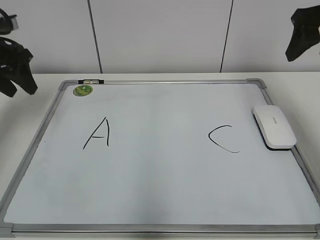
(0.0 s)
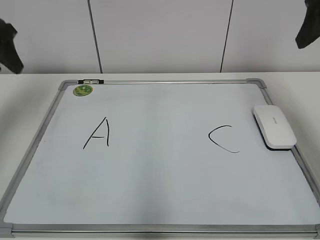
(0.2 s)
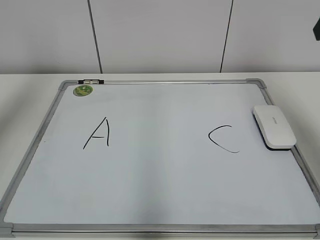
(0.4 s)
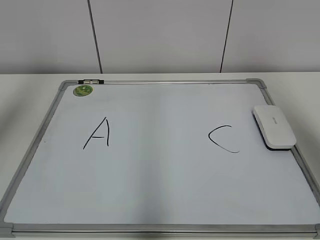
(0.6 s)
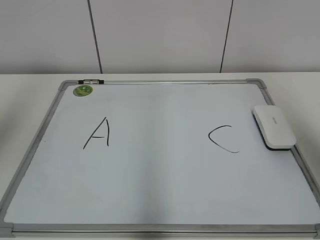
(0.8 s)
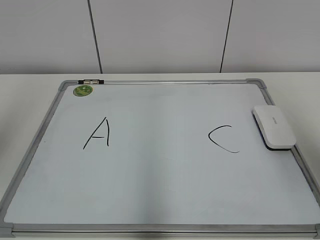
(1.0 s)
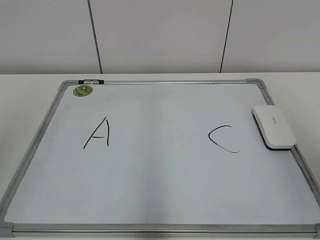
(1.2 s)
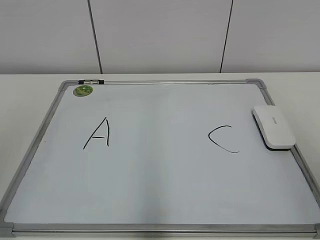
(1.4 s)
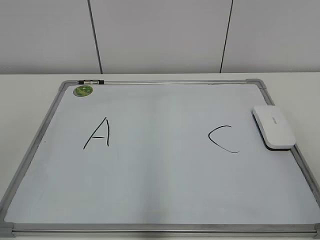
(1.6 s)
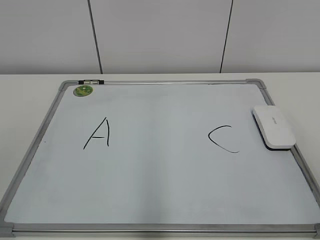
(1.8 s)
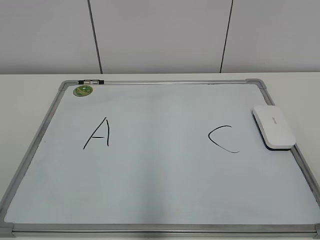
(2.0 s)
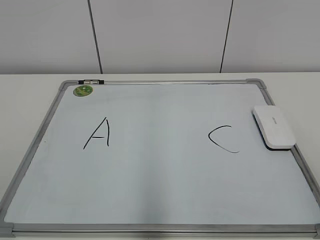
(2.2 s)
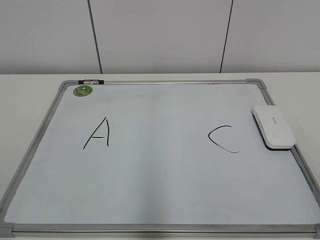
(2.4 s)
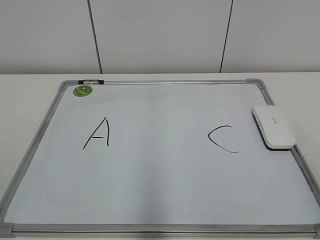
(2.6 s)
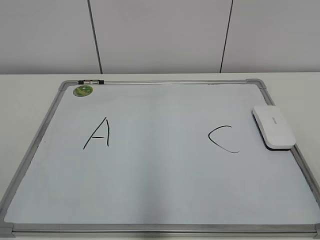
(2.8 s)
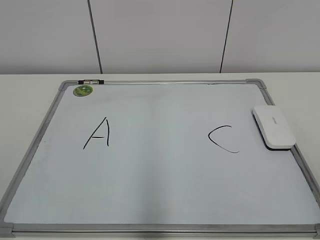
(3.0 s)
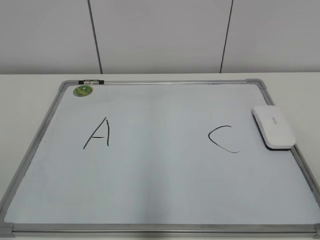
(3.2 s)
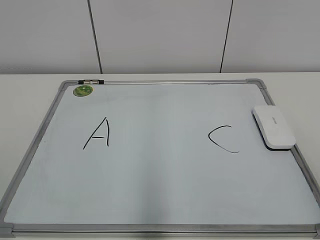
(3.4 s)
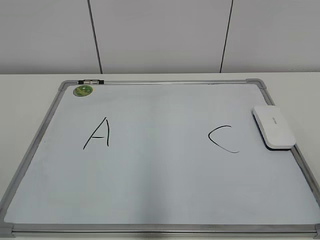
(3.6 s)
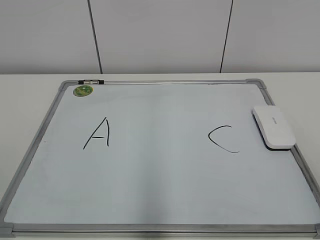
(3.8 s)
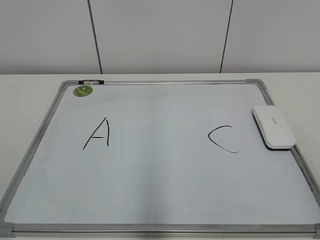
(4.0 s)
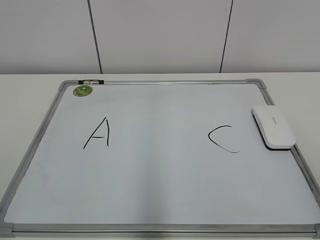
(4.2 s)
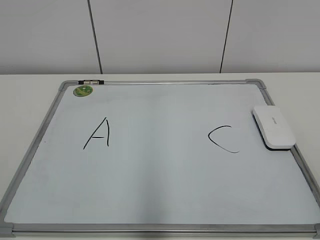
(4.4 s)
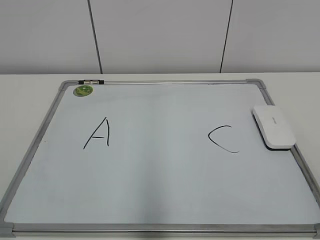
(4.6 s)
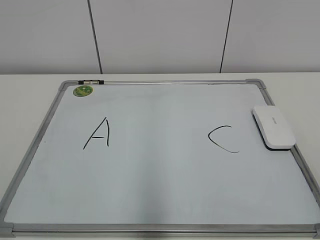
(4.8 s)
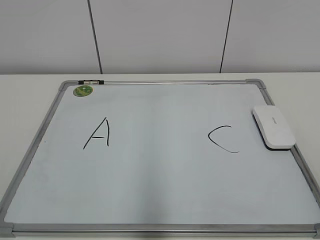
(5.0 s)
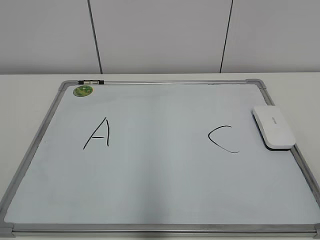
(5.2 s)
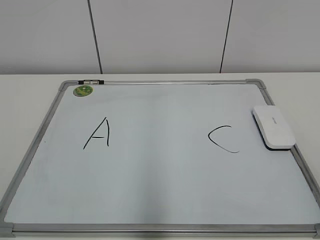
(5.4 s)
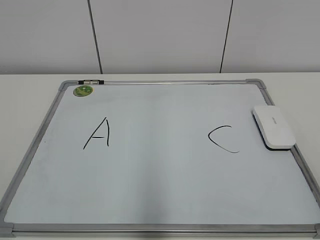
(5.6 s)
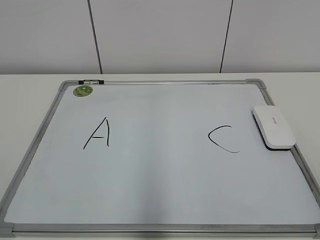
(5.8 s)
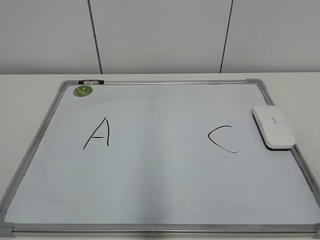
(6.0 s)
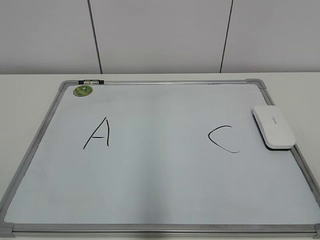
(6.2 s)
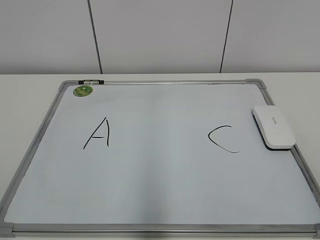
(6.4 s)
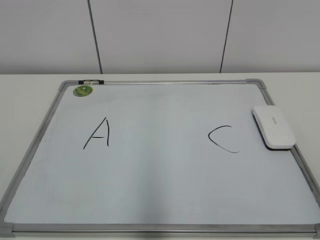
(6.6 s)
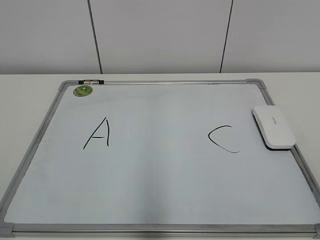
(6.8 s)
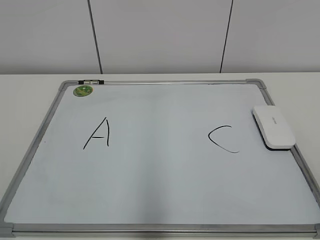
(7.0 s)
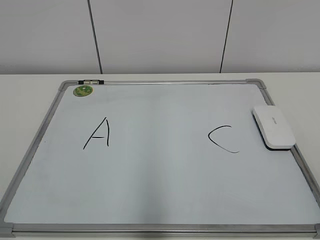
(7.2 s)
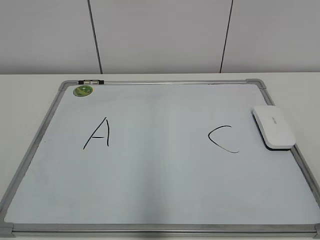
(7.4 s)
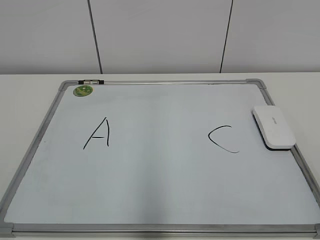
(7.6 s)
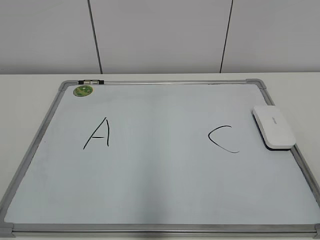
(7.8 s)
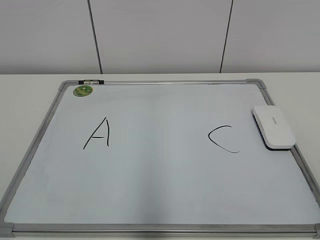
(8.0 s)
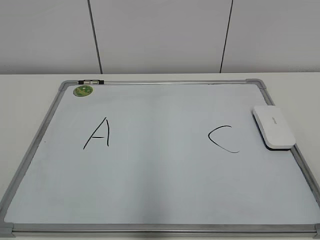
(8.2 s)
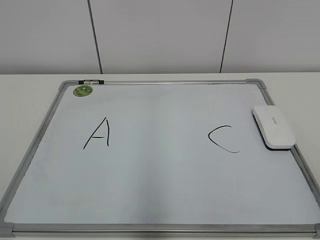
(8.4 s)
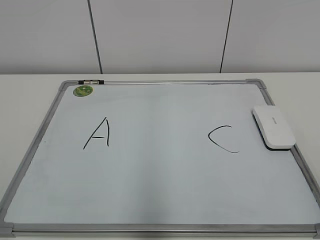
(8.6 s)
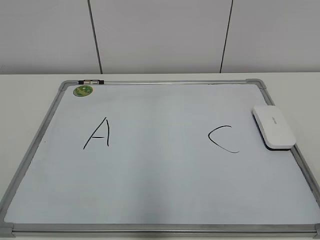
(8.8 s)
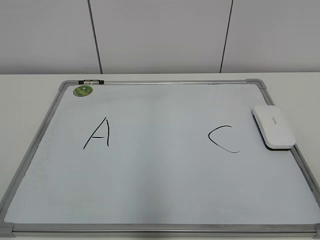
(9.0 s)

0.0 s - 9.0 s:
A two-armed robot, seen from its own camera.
Task of the whole recording: pick up the eraser on the blackboard and erase the letter "B".
0.0 s - 1.6 s: Both grippers move backward, approximately 30 cm.
6.0 s - 9.0 s: Both grippers stay about where they are.

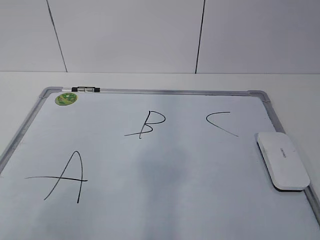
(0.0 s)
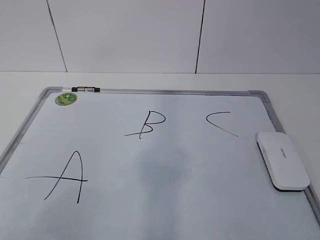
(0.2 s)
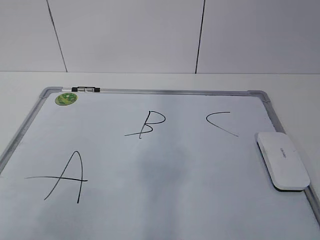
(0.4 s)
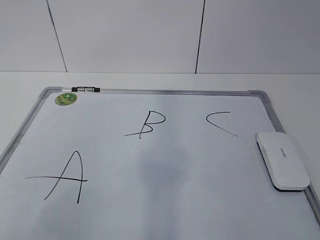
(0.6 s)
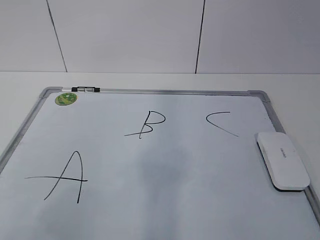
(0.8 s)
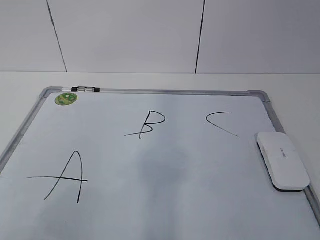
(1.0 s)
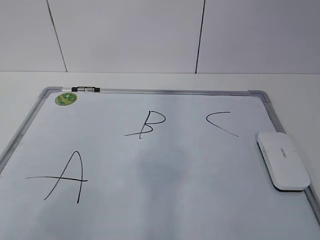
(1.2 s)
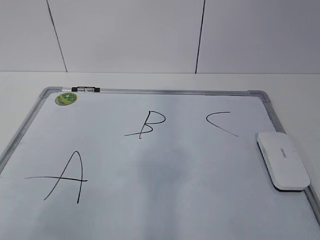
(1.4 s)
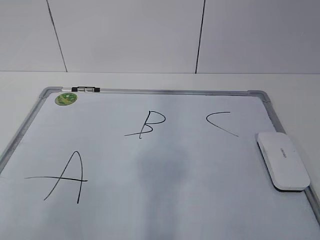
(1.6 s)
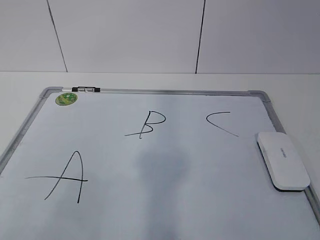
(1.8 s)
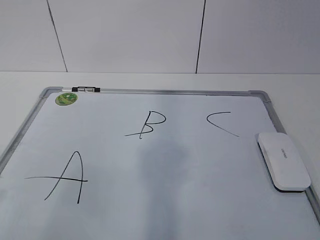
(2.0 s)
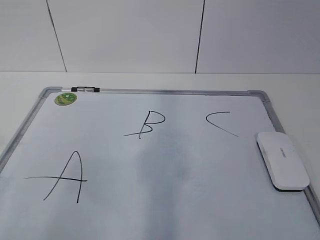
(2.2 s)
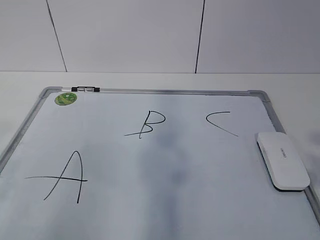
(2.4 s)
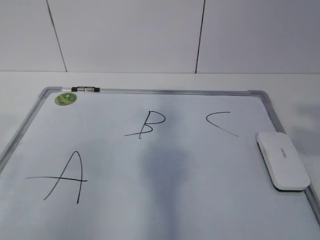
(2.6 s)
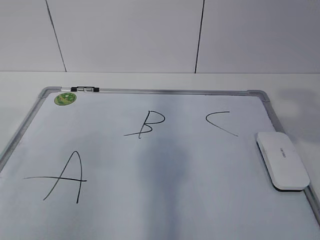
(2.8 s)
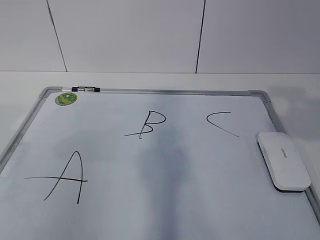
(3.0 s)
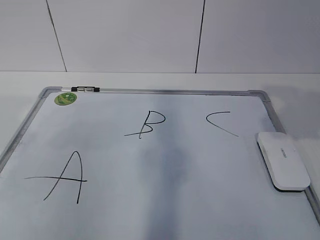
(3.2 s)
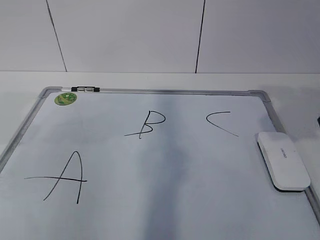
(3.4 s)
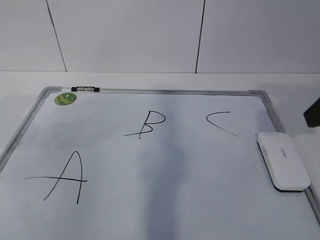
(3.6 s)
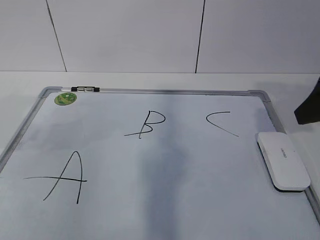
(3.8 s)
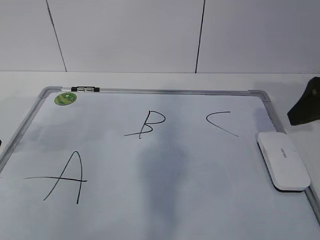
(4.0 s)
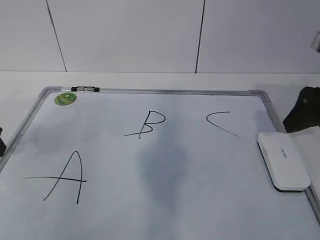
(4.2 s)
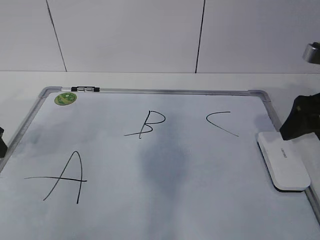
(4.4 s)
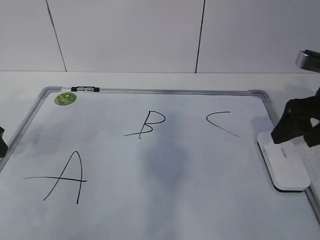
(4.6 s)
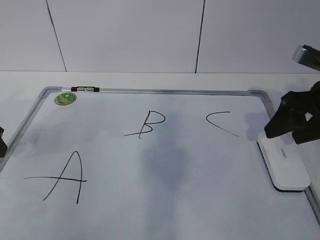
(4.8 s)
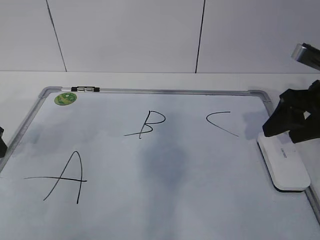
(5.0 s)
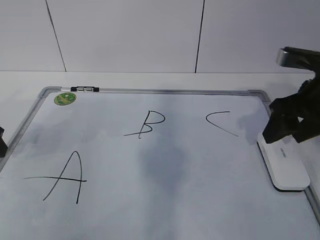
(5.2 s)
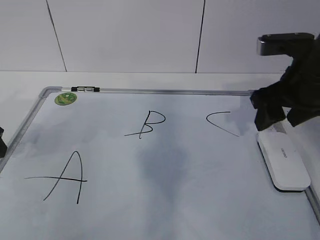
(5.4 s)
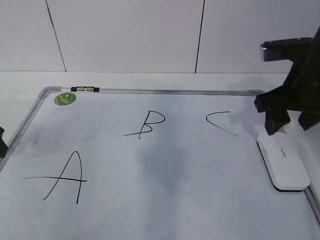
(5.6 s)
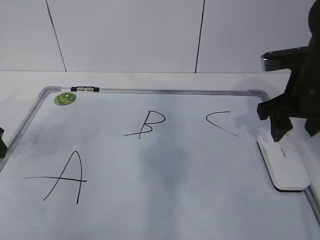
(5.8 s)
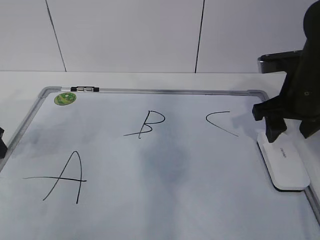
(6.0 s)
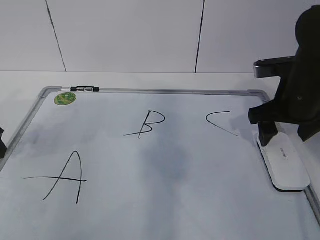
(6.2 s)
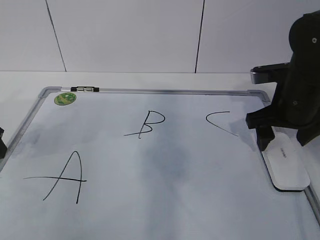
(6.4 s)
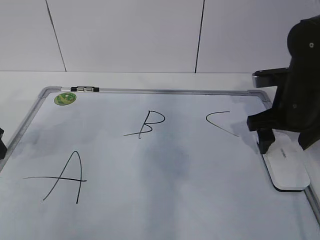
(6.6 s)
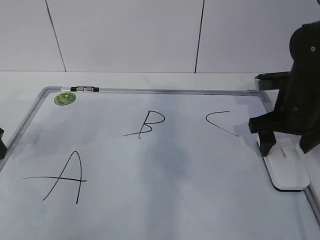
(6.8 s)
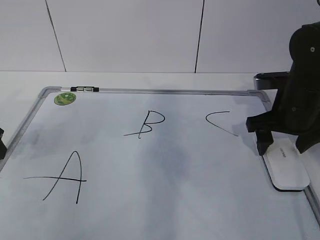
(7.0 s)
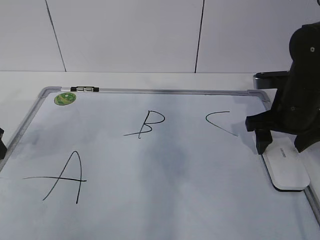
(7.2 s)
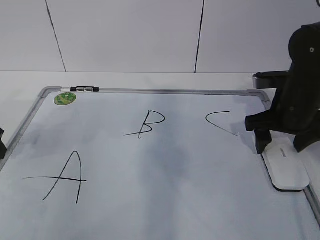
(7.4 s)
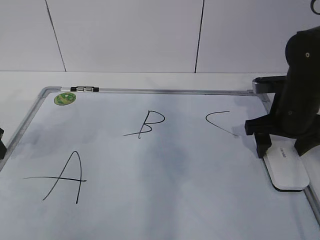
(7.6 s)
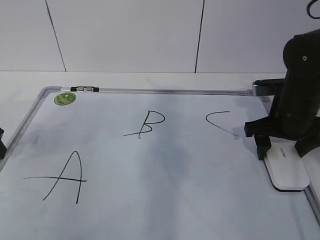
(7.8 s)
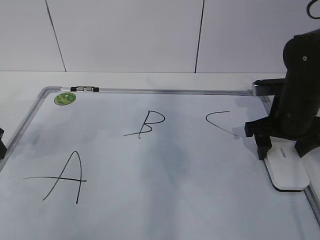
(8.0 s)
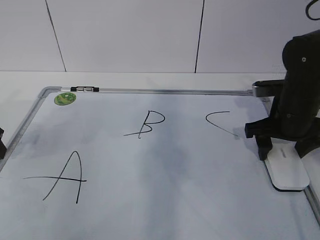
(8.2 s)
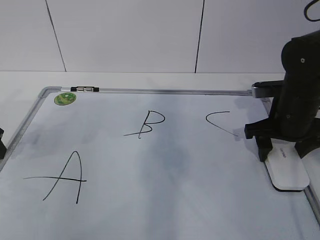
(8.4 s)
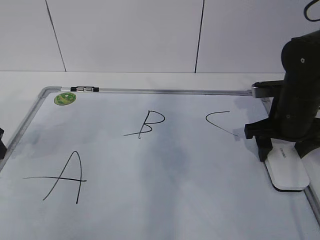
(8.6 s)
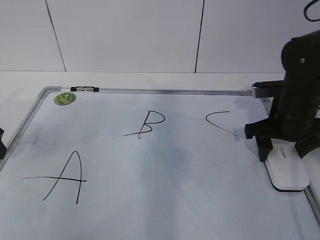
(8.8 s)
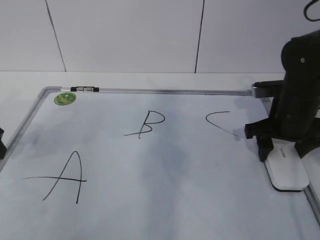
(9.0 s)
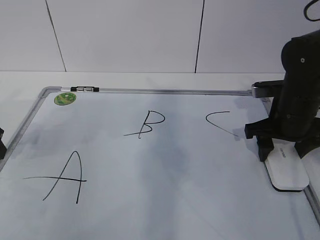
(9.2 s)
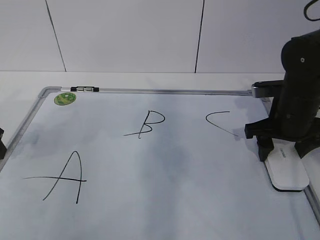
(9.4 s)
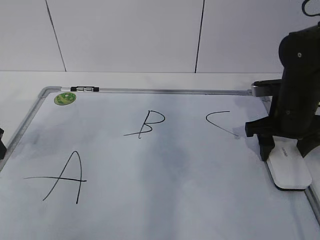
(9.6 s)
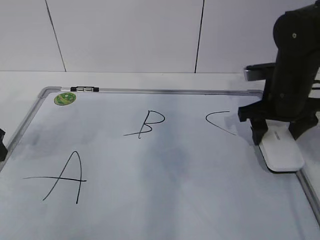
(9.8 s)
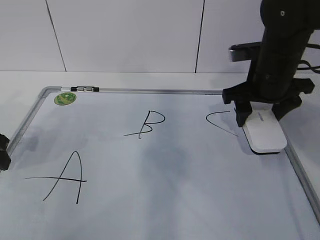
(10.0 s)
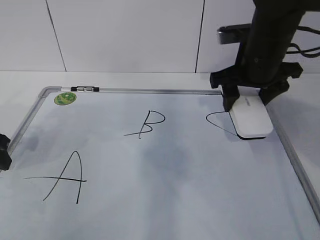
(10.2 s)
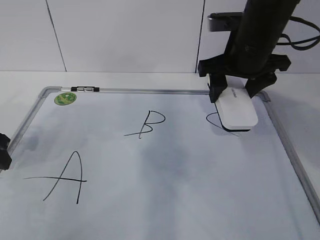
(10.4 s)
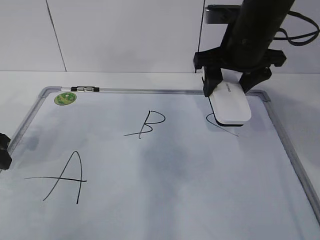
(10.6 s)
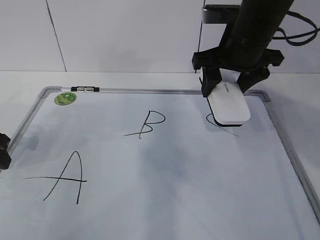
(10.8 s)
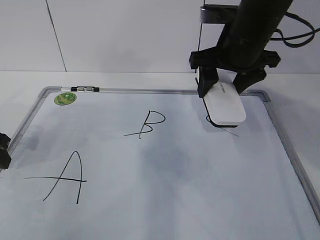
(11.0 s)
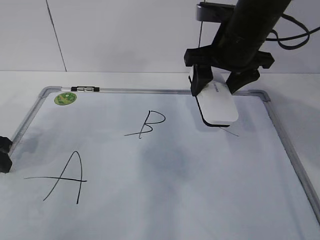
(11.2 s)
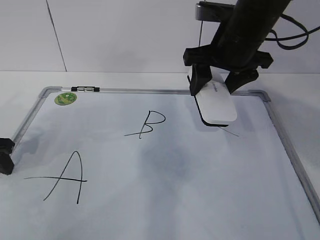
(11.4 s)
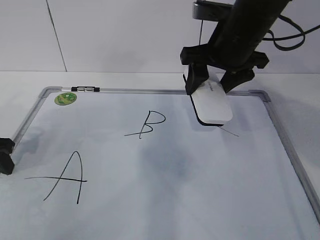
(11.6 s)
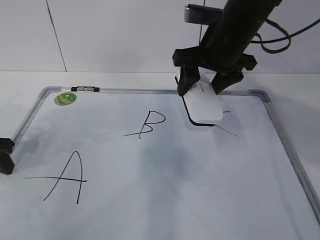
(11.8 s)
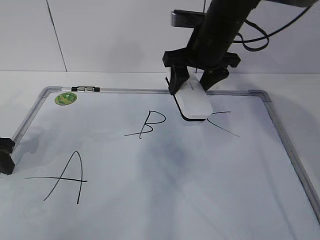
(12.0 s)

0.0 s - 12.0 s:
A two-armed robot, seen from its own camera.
Task of the whole recording: pick up the eraser on the blackboard and erase the letter "B".
Step, 3.6 s - 7.8 s: Grab the eraser with your right hand.
1.6 s - 3.0 s: The left gripper heads forward, covering some 15 cm. Meanwhile the right gripper travels forward and upward by some 20 cm.
3.0 s - 4.4 s: The grippers both shift forward and downward by roughly 15 cm. The right gripper opens its fingers.
4.4 s - 6.0 s: The right gripper moves to the left, some 5 cm, and closes.
6.0 s - 7.6 s: The right gripper moves roughly 5 cm, and opens.
7.6 s - 9.0 s: The right gripper closes.
9.0 s - 10.4 s: The right gripper heads upward and to the left, covering some 15 cm.
10.4 s - 12.0 s: The right gripper changes place by roughly 5 cm.

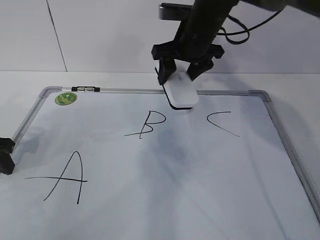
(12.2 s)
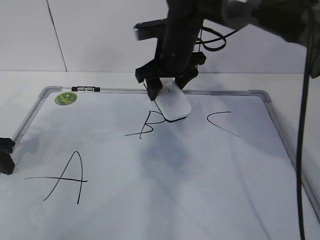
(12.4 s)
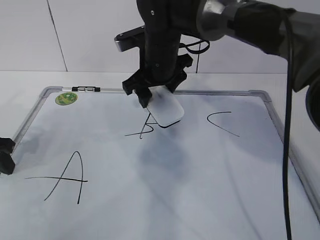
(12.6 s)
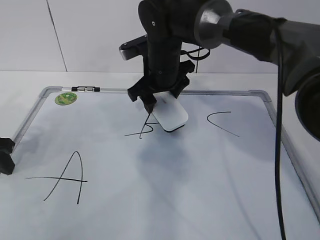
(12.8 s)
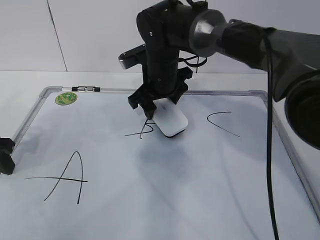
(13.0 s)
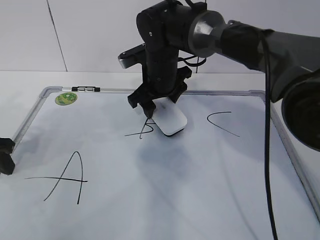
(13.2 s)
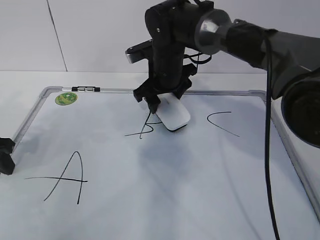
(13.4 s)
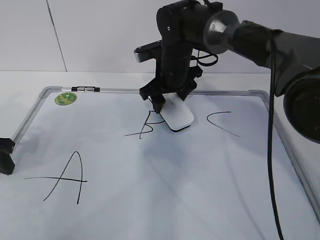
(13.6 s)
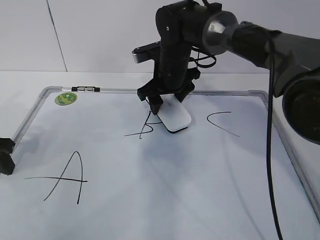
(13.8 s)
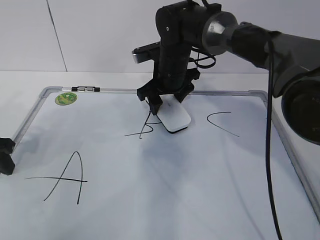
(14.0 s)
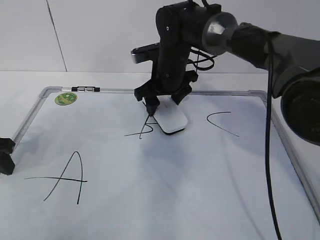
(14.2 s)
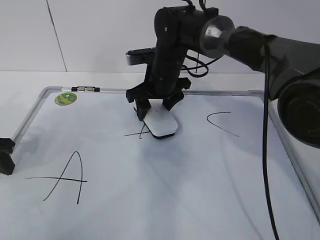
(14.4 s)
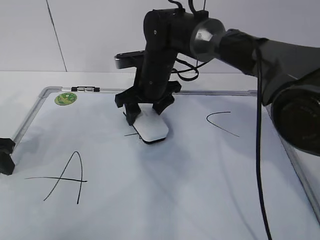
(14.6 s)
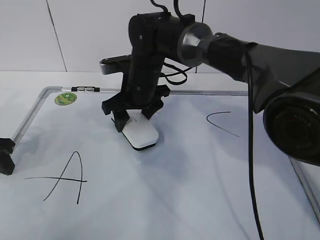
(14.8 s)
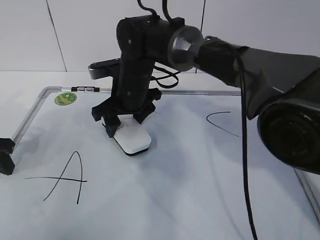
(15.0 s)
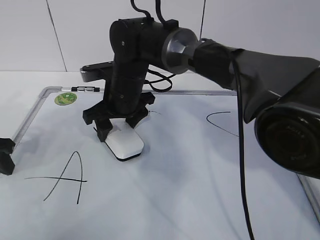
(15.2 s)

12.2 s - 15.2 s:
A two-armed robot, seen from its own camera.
Task of the whole recording: pick up the eraser on the blackboard and erase the letter "B".
Step, 12.2 s - 14.4 s: Erase the letter B with your right hand.
12.2 s - 13.8 s: The right gripper is displaced downward by about 5 cm.
13.8 s - 15.2 s: The right gripper is displaced to the left and backward by approximately 10 cm.
